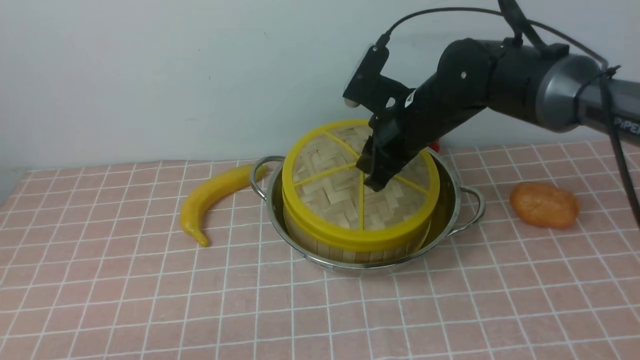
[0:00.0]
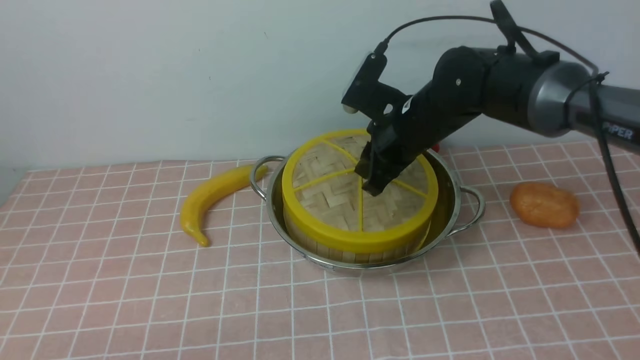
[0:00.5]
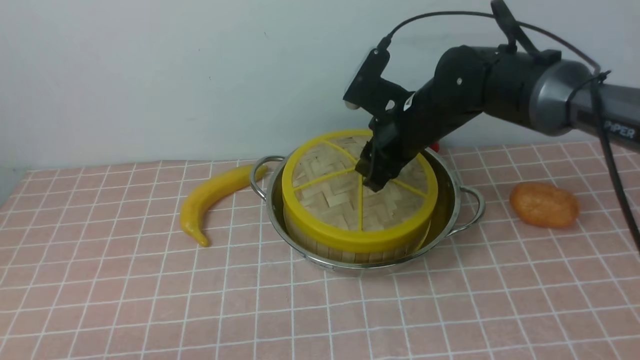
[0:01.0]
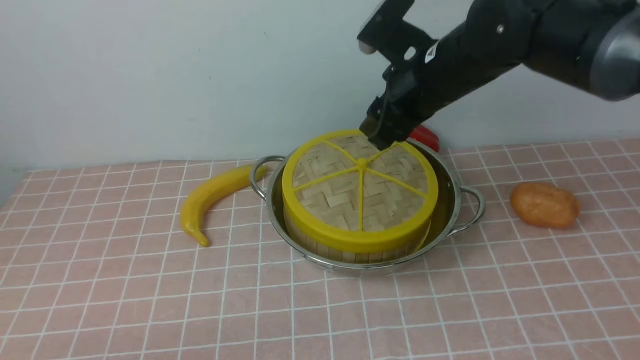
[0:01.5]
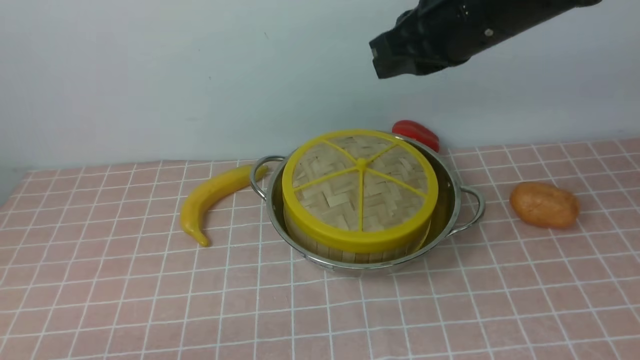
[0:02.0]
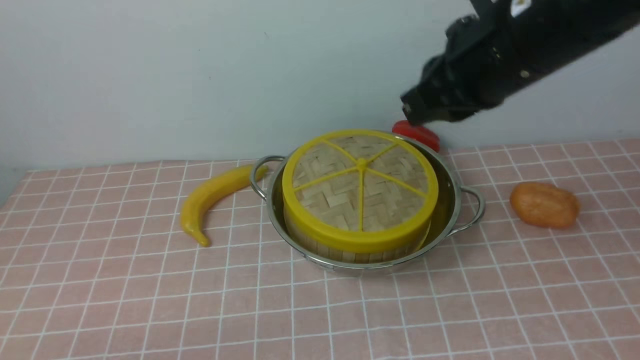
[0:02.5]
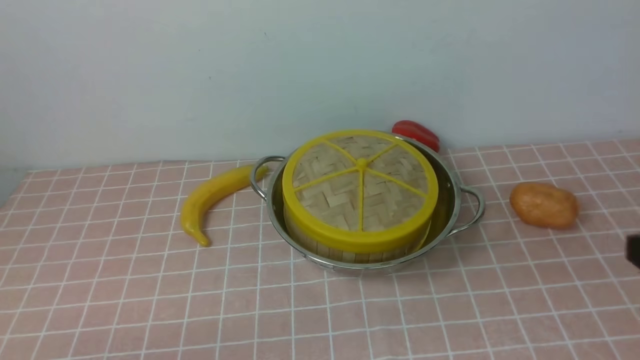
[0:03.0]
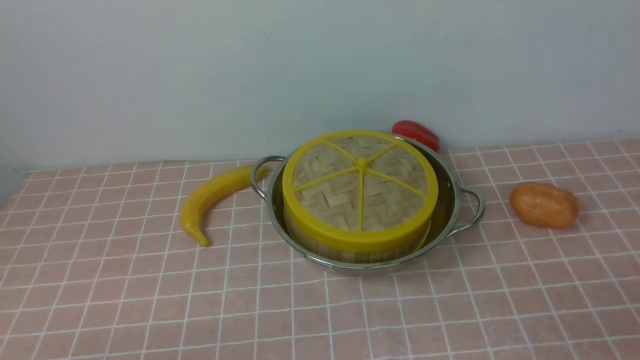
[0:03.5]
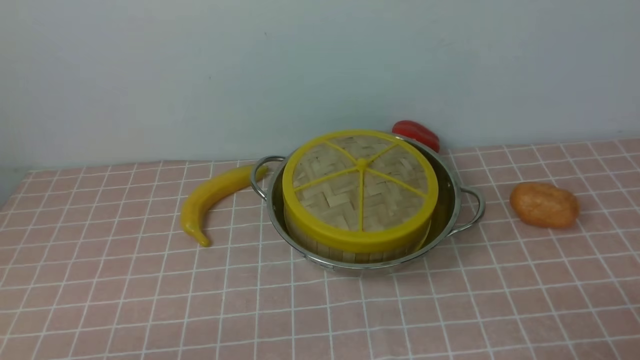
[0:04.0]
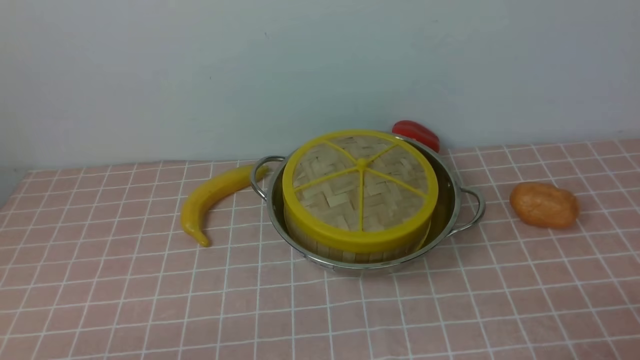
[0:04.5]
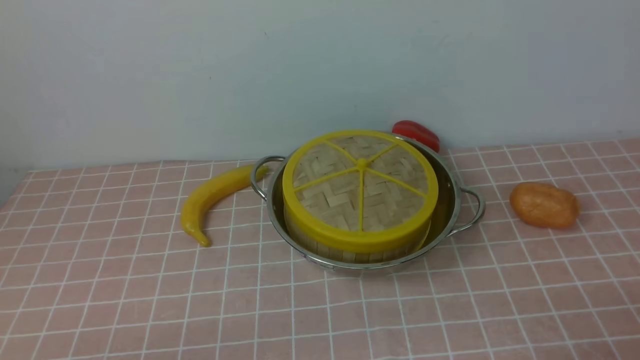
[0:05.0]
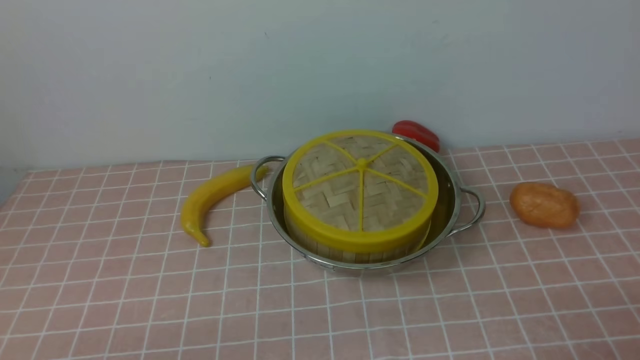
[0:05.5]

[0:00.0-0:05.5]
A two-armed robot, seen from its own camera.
Task of the whole recording: place the steamer in the pot on the pink tablecloth, and put the lid on the steamer.
0:00.0 to 0:02.0: The right gripper goes roughly 15 cm upward and backward, and closes up.
0:02.0 to 0:03.5: The right gripper is displaced backward, to the right and downward by about 40 cm, and opens its fingers.
